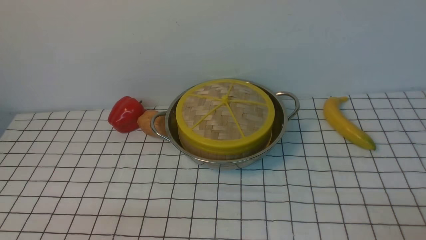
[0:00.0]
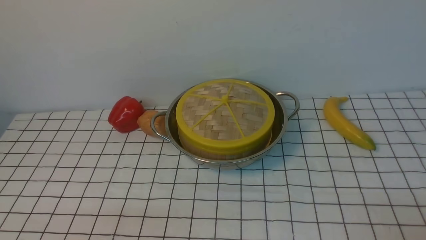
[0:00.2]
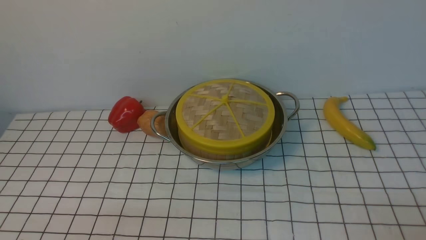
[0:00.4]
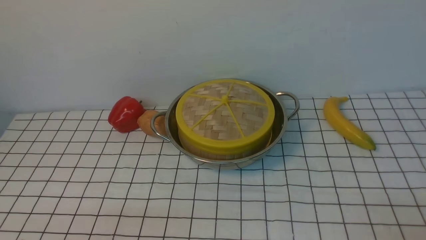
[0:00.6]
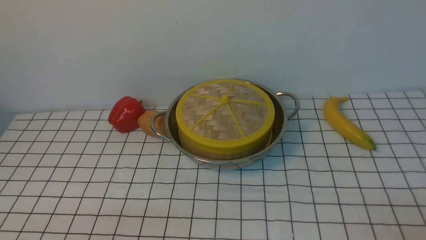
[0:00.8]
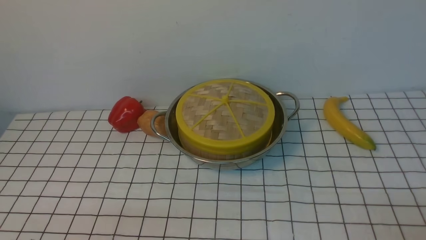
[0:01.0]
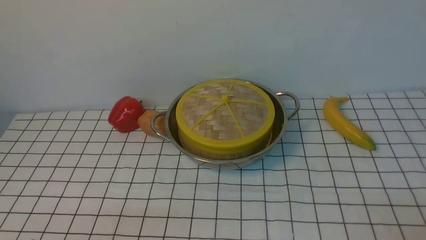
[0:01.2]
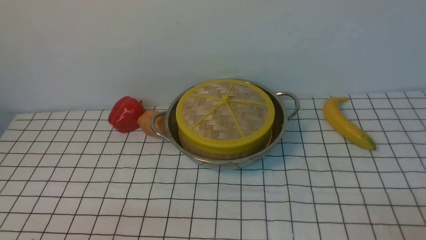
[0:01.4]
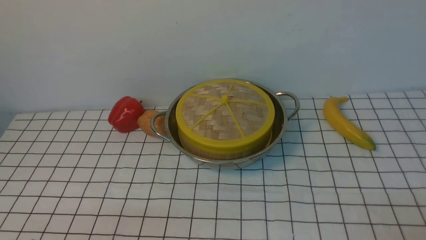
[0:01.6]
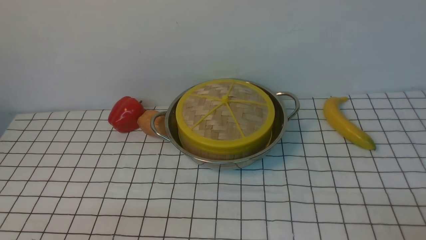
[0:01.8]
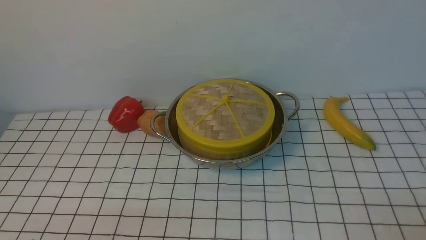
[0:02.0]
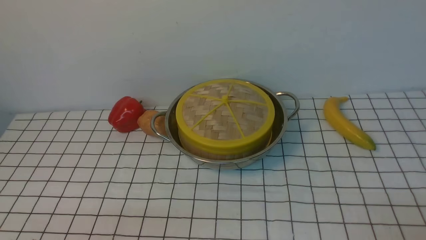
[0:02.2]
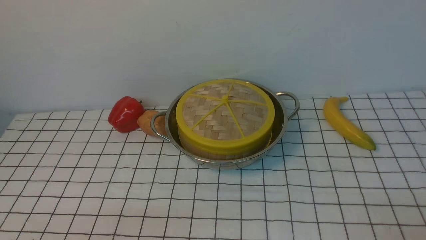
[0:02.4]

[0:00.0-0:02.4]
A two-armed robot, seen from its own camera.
Task of the whole recording: place the steamer in the pot on the white tablecloth, and put the lid on the steamer.
0:00.0 to 0:02.4: Neither gripper changes place.
